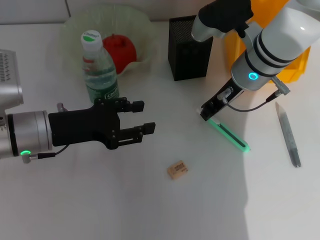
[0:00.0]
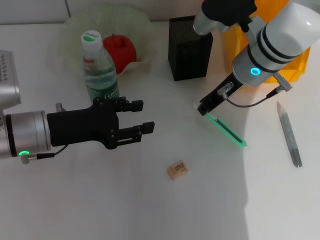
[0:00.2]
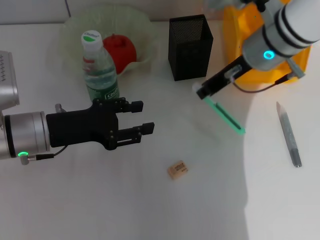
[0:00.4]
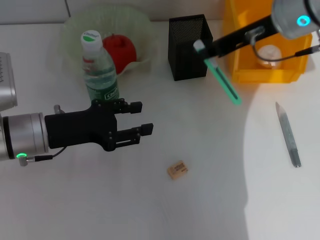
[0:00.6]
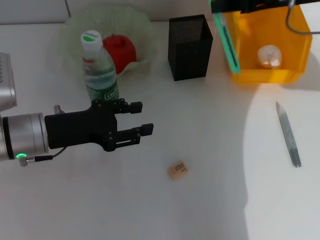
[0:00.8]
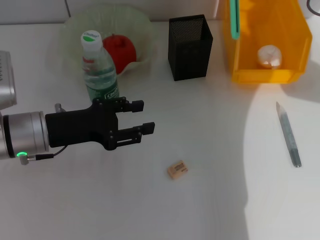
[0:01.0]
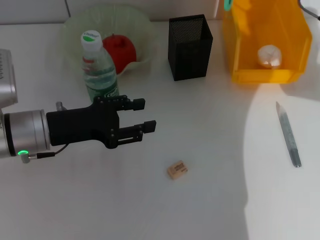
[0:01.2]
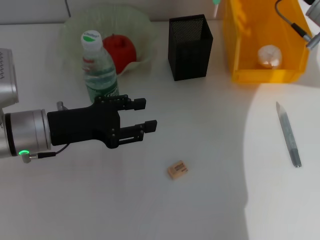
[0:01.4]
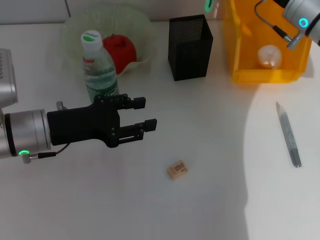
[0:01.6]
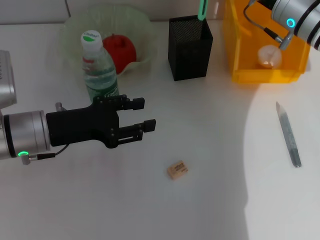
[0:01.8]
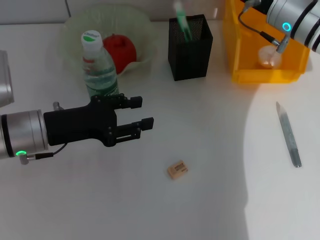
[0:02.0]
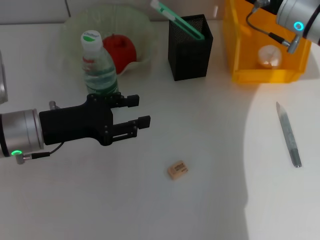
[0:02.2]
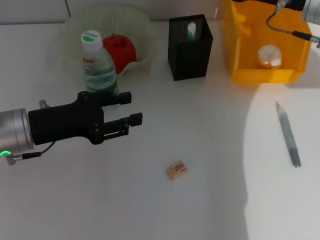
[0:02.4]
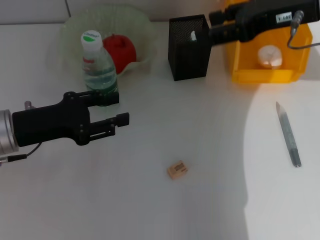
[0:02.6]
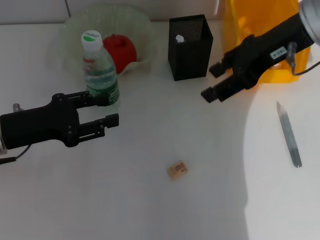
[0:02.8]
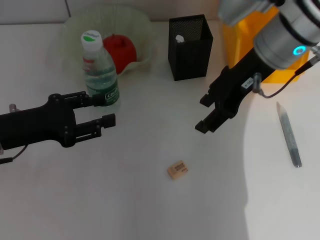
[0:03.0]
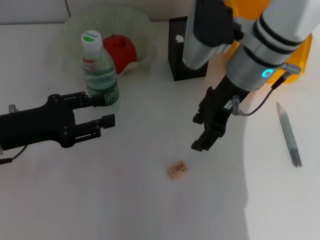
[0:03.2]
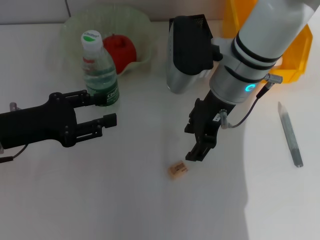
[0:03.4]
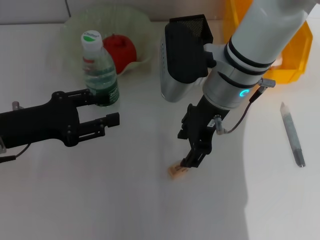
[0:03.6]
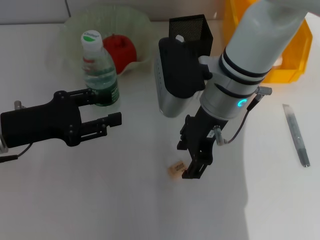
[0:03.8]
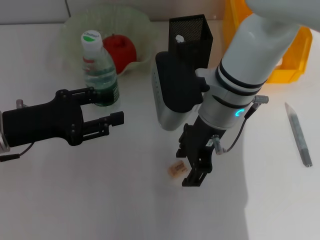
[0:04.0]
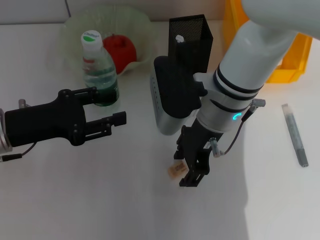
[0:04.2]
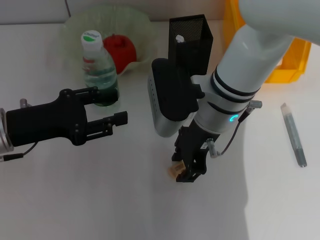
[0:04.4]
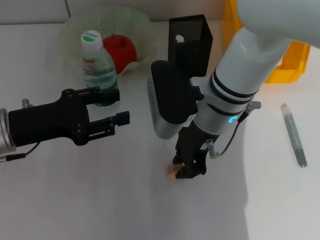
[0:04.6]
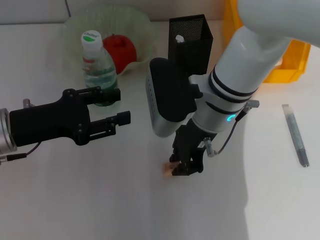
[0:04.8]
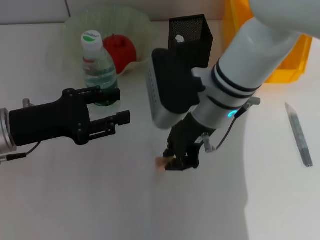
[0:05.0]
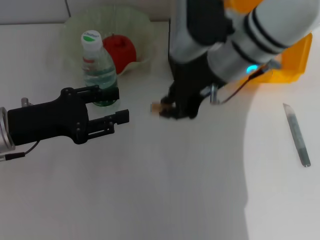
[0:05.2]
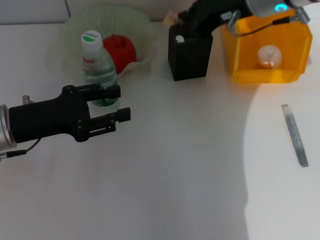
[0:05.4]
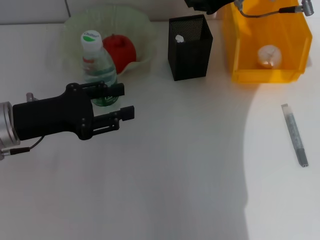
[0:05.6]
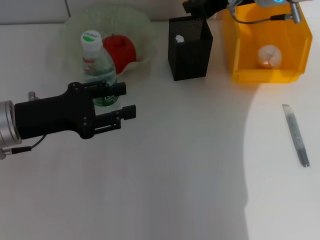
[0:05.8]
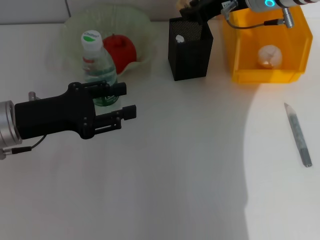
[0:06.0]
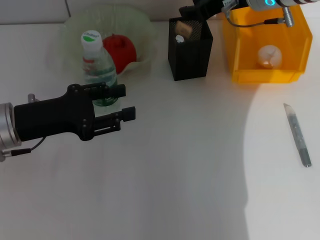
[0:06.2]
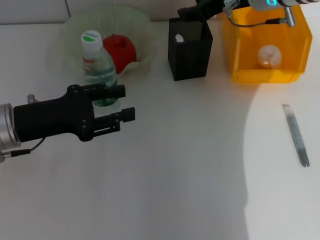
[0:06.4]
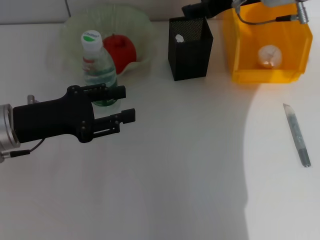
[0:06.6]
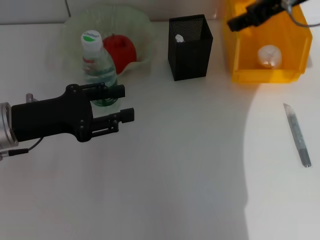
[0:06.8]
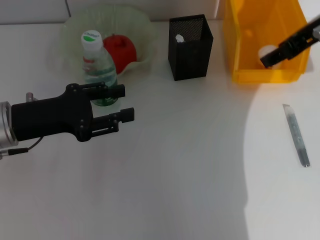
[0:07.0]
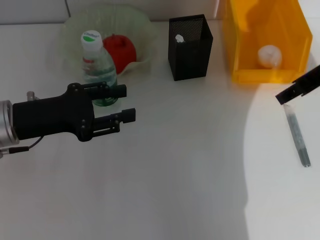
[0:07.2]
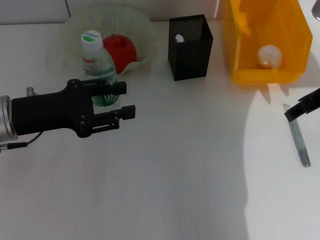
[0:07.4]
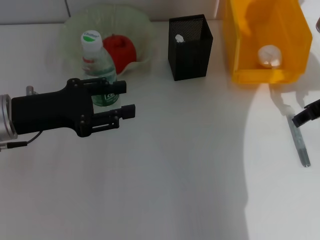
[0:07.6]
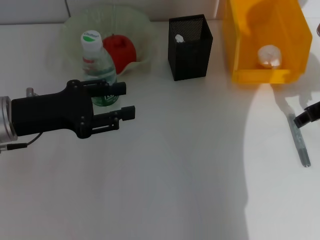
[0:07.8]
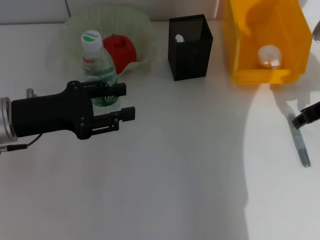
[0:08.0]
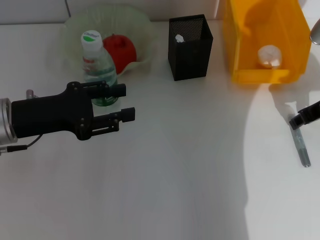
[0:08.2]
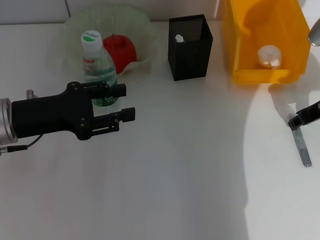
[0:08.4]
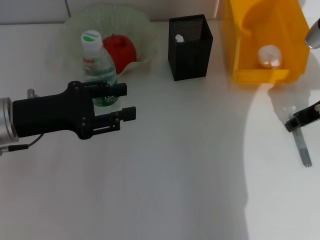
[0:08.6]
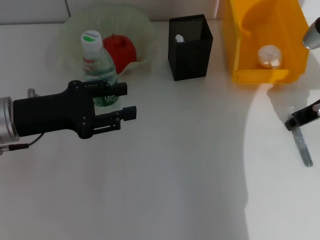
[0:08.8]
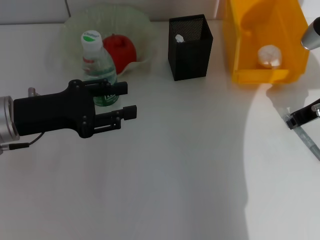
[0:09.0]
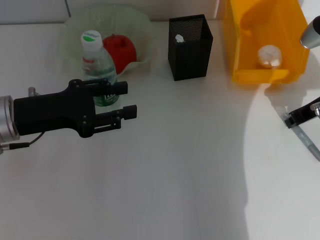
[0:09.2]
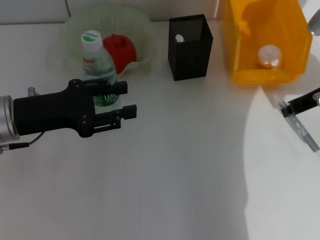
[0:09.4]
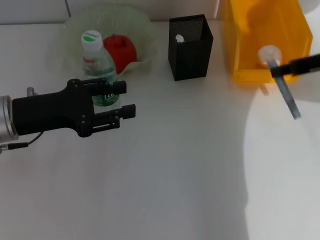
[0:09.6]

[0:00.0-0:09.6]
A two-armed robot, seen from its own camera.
Step, 0:00.0 to 0:02.6: Place the blue utility knife into the pen holder with the right hand.
Step, 0:02.8 to 0:04.4: Grab the eraser with the right hand.
Step, 0:04.6 to 0:06.2: Put the eraser into the pen holder with the right hand.
Step, 0:06.4 to 0:08.8: Grab the gray glue with the right hand.
0:00.0 to 0:01.6: The right gripper goes about 10 cm to the right.
0:01.6 to 0:03.2: The right gripper goes approximately 10 cm to the left, and opens its fingers. The left gripper is displaced to the left by some 5 cm.
0:03.2 to 0:04.8: The right gripper moves roughly 10 cm, and closes.
0:04.8 to 0:06.4: The right gripper is displaced forward, to the right and upward by some 15 cm.
0:06.4 to 0:08.0: The right gripper travels to the right, backward and downward by roughly 15 cm.
0:08.0 to 0:09.6: The right gripper heads upward, covering some 5 cm, and closes up.

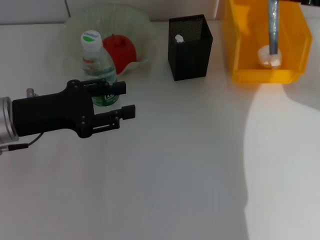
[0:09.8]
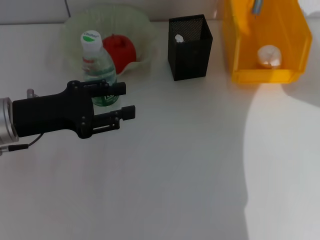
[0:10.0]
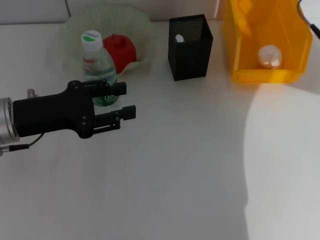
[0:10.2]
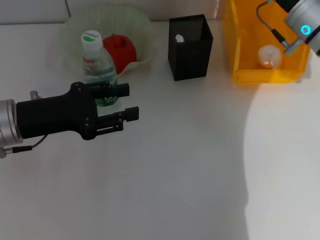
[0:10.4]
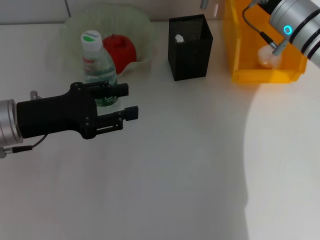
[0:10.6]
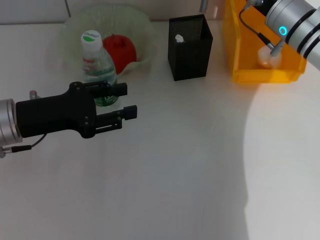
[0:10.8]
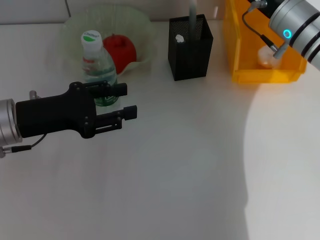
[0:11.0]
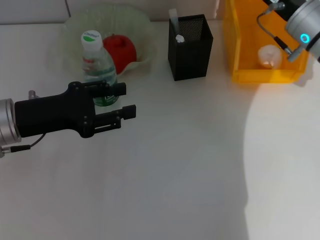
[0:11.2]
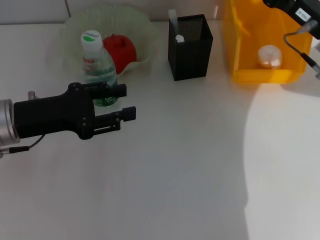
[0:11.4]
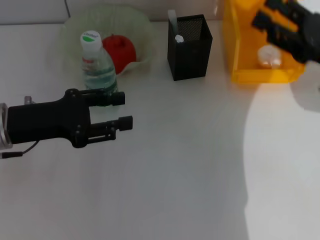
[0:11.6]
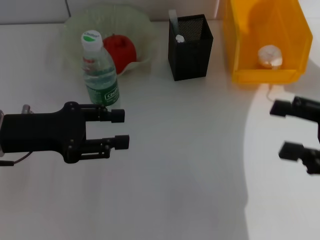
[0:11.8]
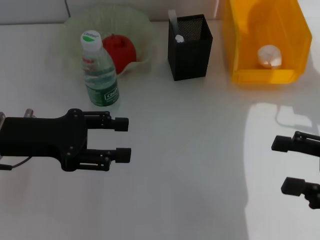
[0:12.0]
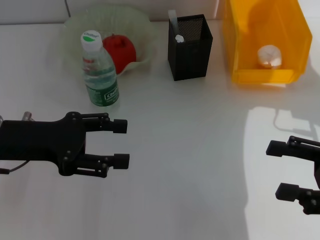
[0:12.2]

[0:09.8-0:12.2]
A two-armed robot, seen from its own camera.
Step, 0:09.8 to 0:11.2: Place the gray glue into the pen holder with the right hand.
0:09.8 to 0:11.0: The right gripper moves downward, to the left and forward, approximately 15 cm.
0:11.0 to 0:12.2: The right gripper shifts approximately 25 cm backward and to the right, and opens.

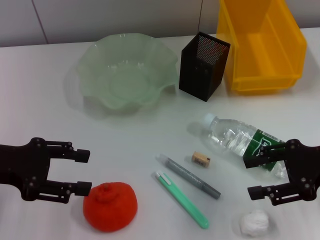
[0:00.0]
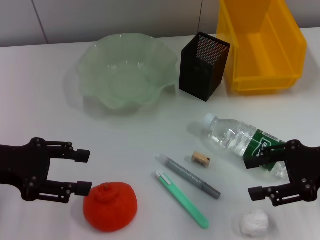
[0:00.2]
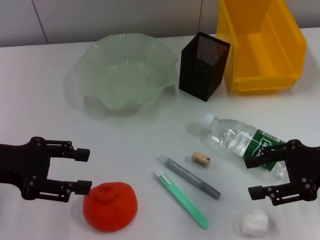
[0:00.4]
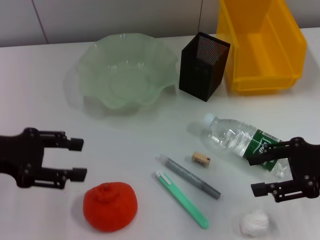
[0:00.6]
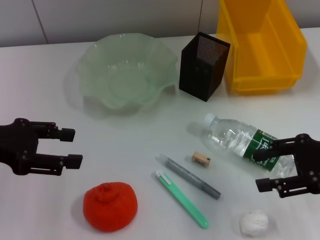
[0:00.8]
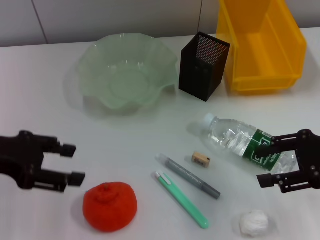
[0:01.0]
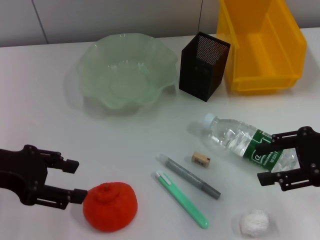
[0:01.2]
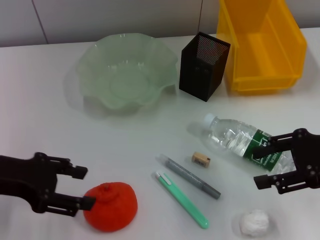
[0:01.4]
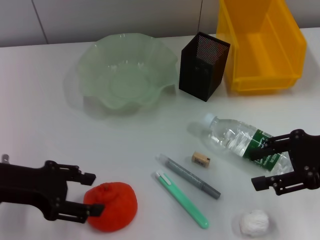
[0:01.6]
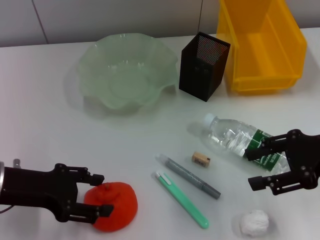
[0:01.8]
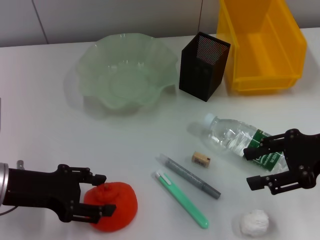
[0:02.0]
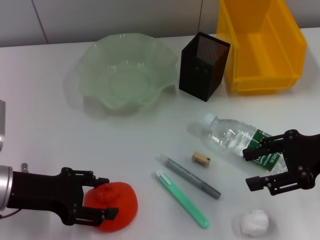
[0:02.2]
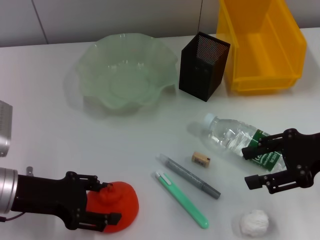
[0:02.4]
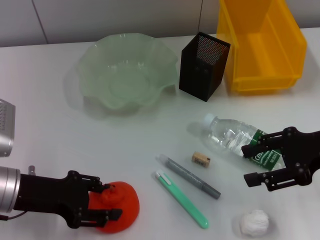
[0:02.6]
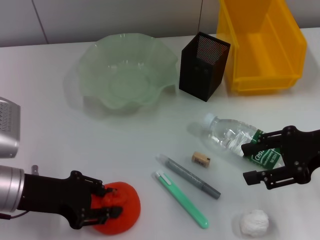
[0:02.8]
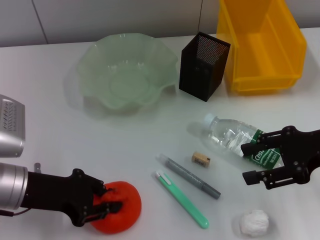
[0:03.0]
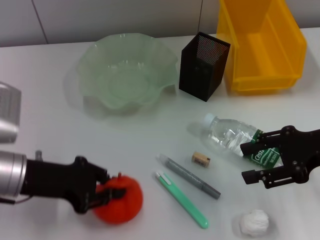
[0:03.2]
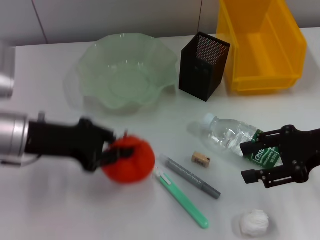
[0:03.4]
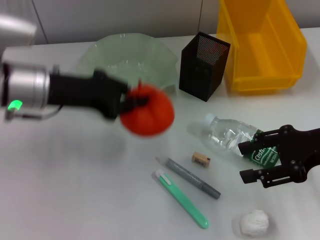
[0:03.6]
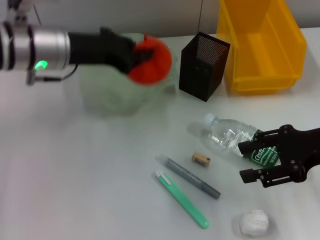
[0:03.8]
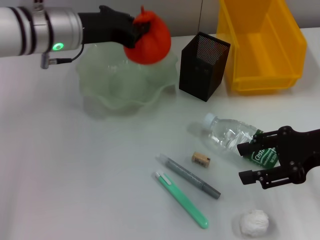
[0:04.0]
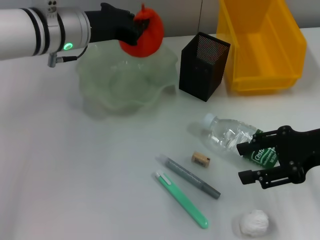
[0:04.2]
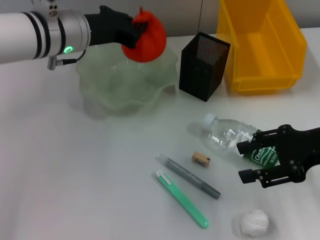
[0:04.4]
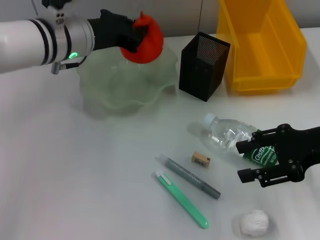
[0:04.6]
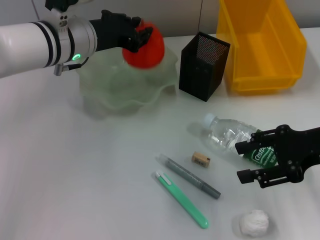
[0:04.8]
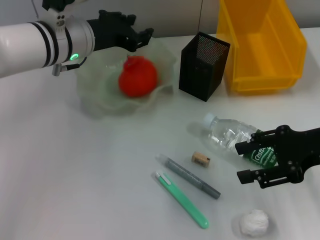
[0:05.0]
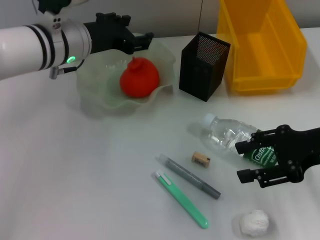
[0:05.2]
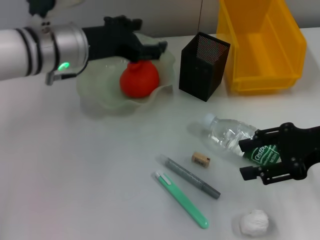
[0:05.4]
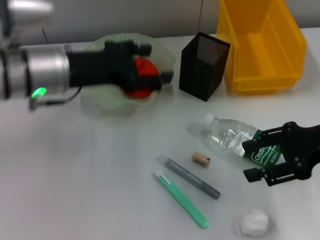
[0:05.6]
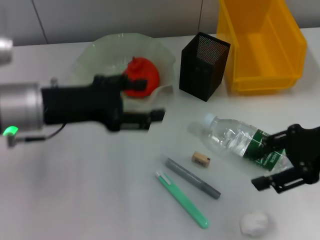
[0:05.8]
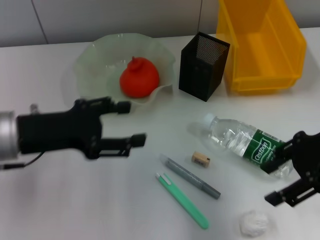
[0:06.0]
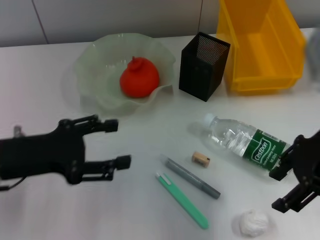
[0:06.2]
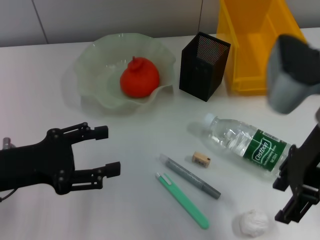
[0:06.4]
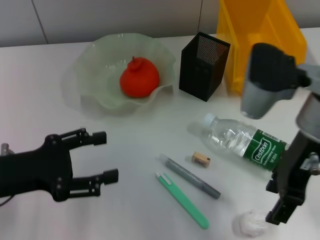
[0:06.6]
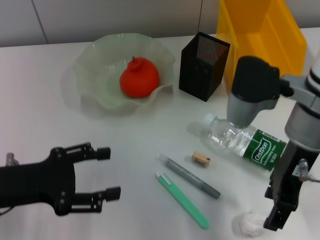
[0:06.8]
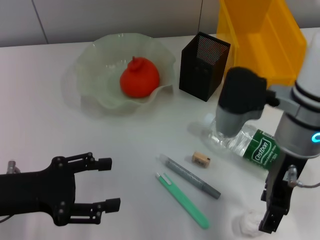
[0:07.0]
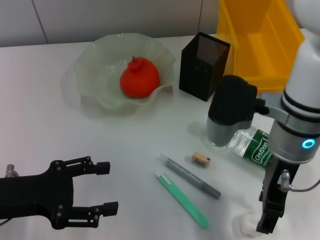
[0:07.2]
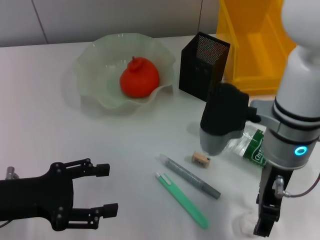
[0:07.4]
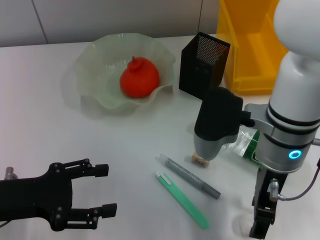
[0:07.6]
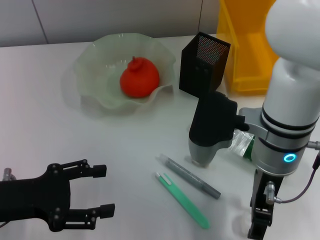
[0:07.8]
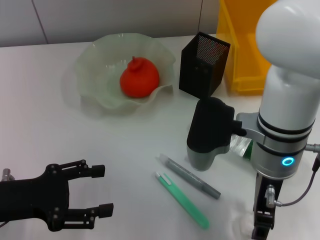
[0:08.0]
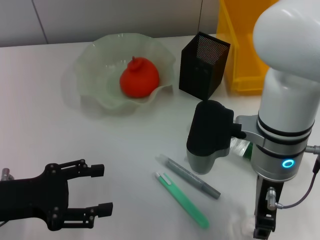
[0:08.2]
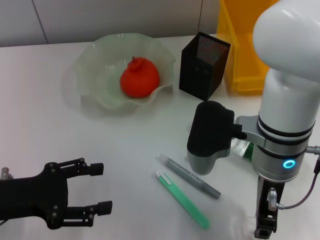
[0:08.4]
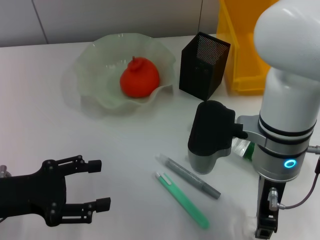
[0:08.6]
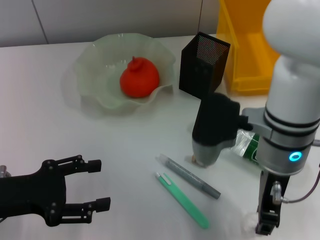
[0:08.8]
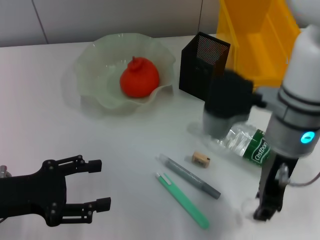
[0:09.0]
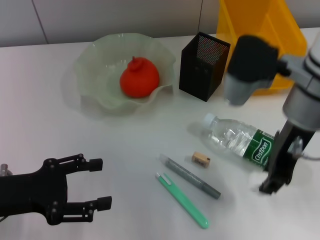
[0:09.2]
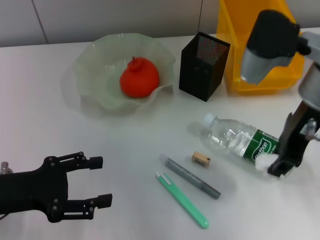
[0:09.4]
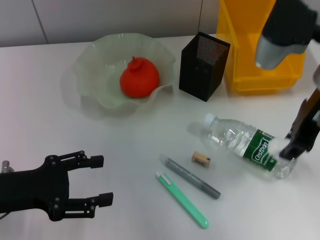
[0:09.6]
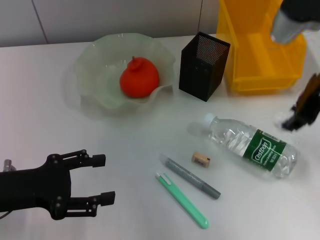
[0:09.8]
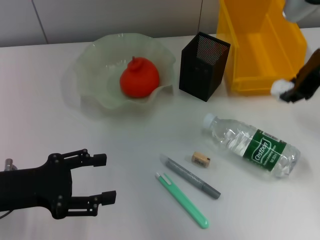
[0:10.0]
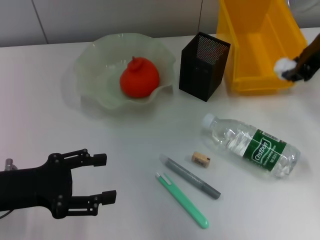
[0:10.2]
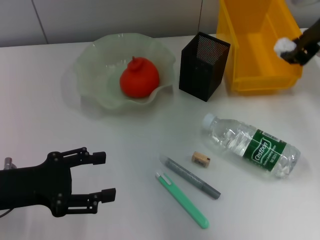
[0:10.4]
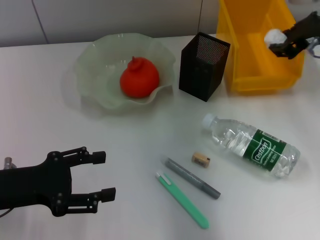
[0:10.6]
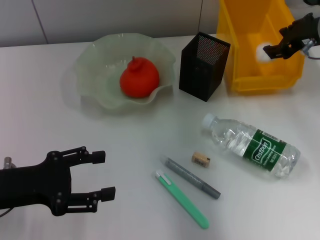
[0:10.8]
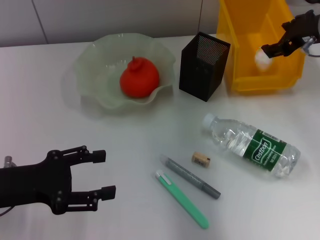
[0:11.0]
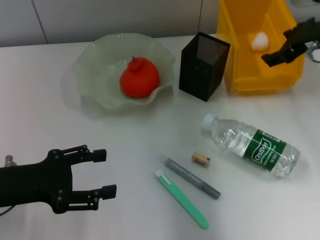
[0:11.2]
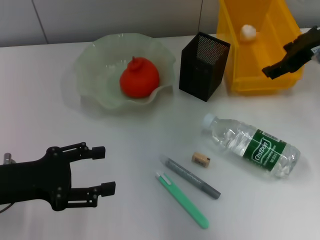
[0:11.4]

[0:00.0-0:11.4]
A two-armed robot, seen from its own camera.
Step, 0:00.0 to 0:02.4: Grab the orange with the left hand.
Step, 0:02.6 to 0:05.2: Place the orange into the fruit bowl with the left hand.
Step, 0:05.6 to 0:08.4: Grab the paper ball with the right hand.
Step, 0:08.6 to 0:11.4: Place the paper ball into the trash can with the right hand.
0:00.0 to 0:01.4: There are only small adjustments of the grippers.
0:01.4 to 0:02.8: The left gripper heads downward, covering roughly 5 cm.
0:02.8 to 0:04.2: The left gripper heads forward, to the right and upward, covering approximately 20 cm, and closes up.
0:04.2 to 0:05.6: The left gripper heads backward, covering some 5 cm, and opens.
0:05.6 to 0:07.2: The left gripper moves backward, to the left and downward, about 15 cm; the right gripper shifts about 15 cm to the left.
0:07.2 to 0:08.6: The right gripper closes.
0:08.6 to 0:10.0: The right gripper heads to the right, upward and forward, covering roughly 15 cm.
0:10.0 to 0:11.4: The right gripper opens up.
